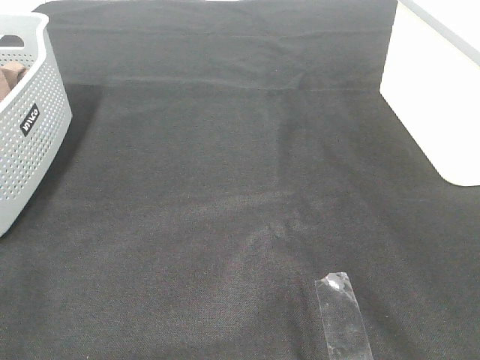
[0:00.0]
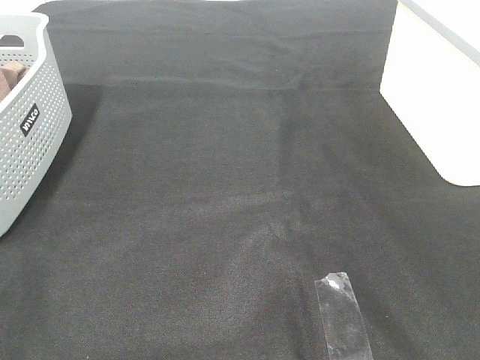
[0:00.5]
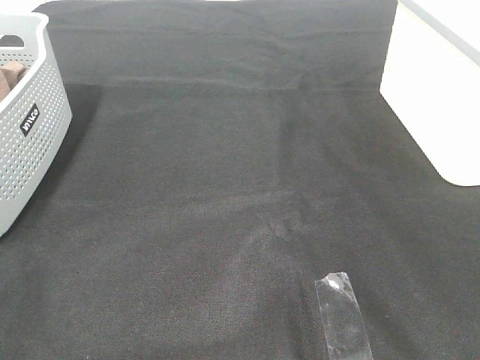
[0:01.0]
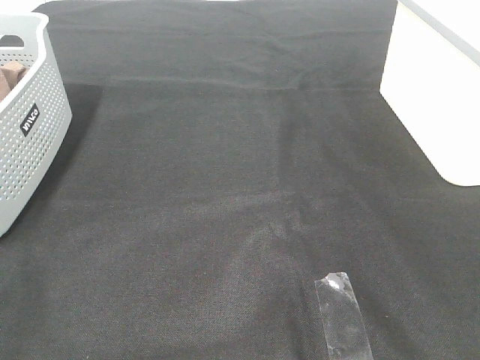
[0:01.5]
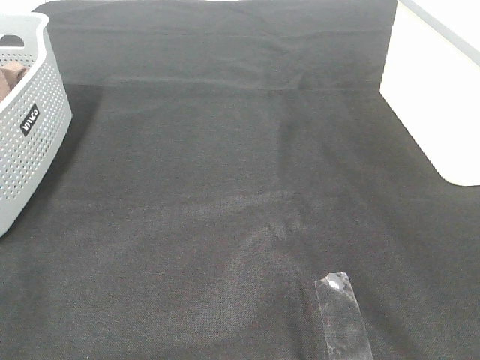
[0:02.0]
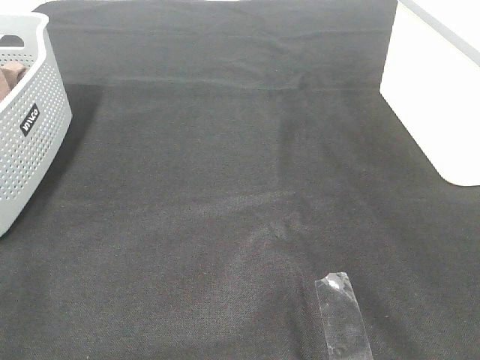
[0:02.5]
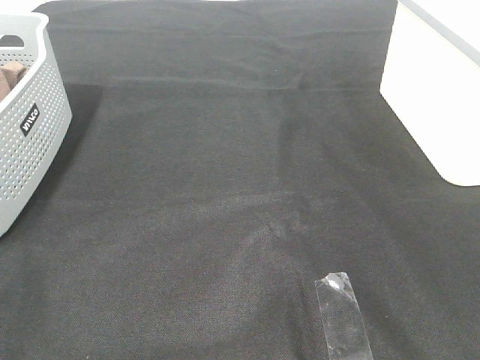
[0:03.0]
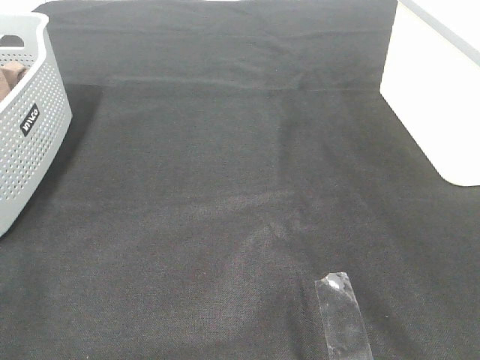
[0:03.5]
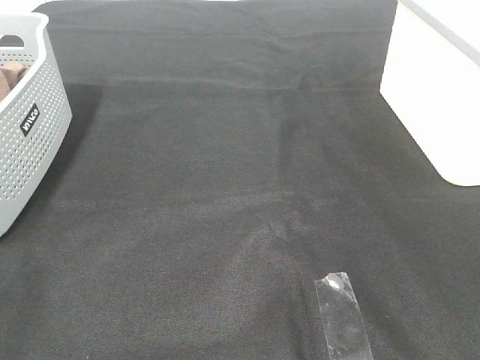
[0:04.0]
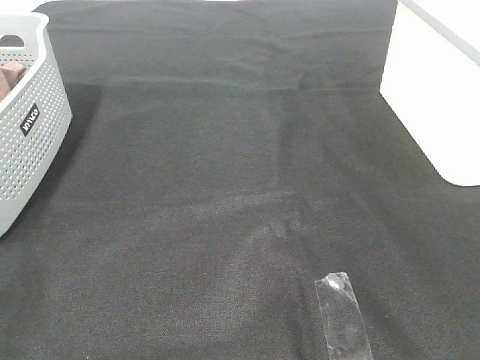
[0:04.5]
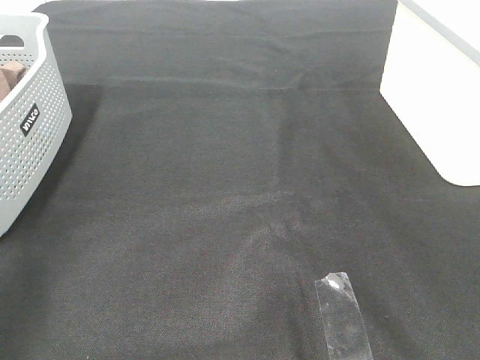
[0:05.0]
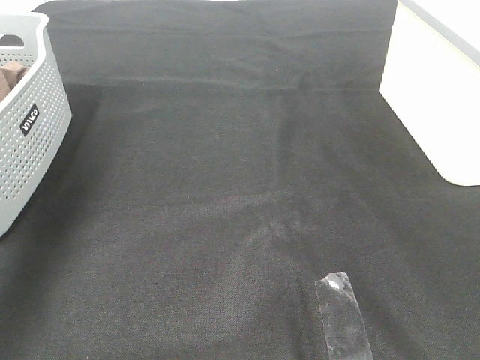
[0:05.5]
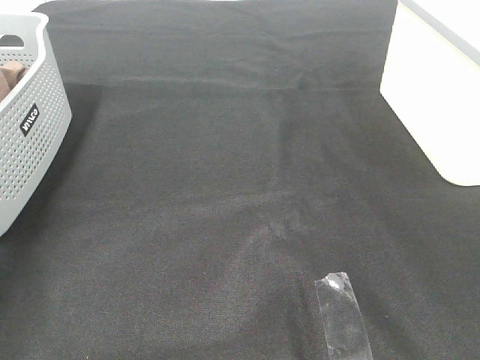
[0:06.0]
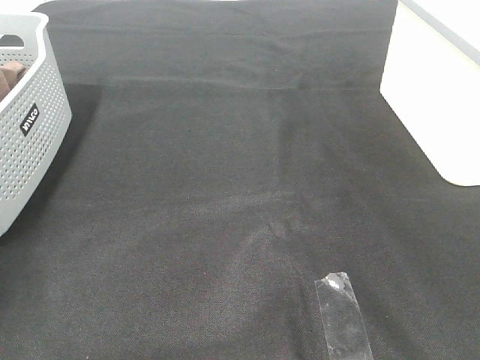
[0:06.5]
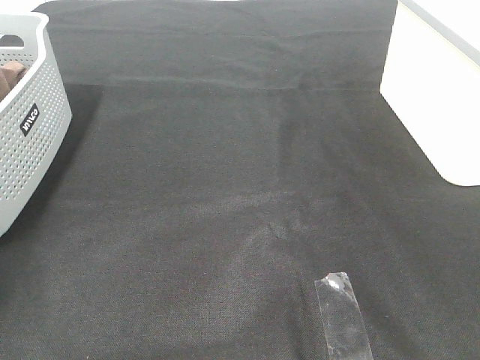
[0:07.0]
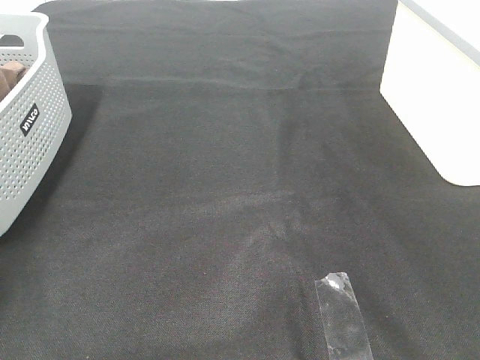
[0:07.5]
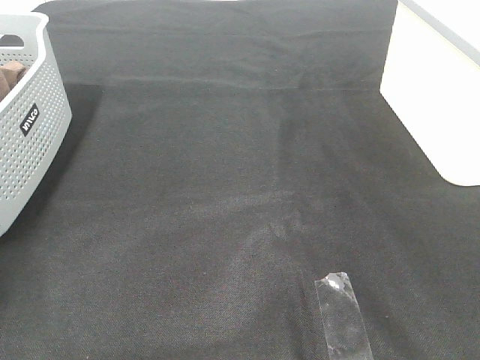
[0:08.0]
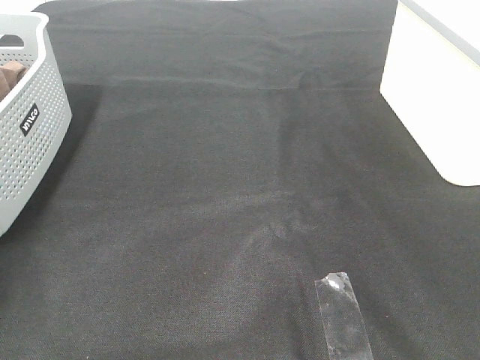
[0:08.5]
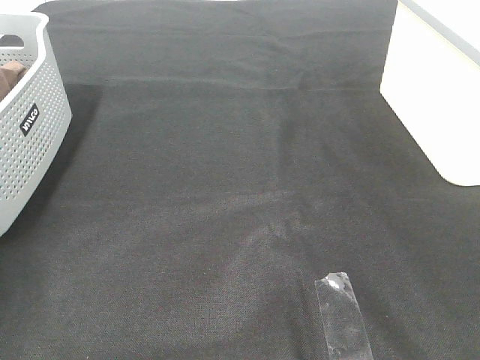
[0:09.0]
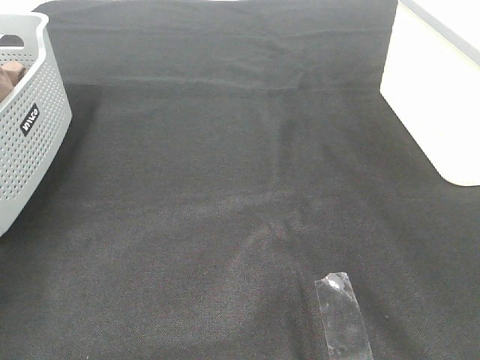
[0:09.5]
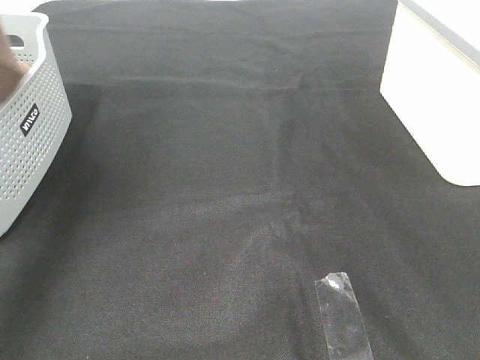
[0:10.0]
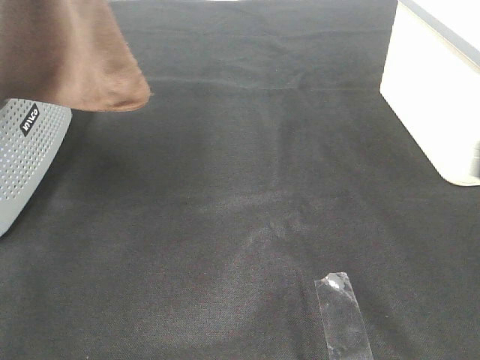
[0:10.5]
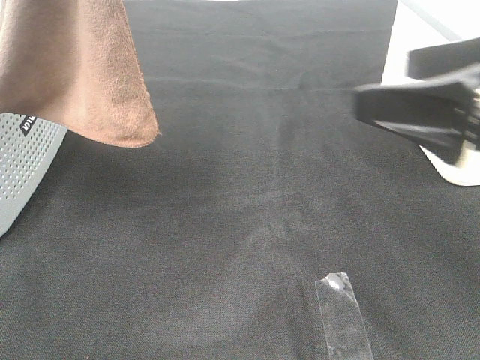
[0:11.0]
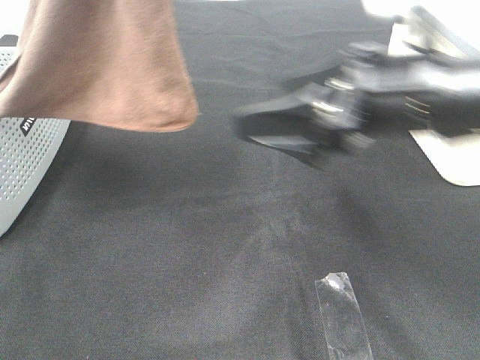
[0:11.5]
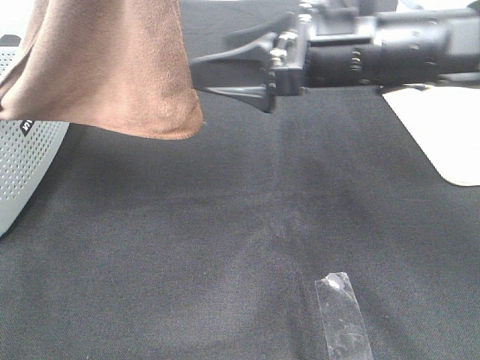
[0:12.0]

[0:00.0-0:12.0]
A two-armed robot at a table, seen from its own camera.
Task of the whole recording: Remove the towel and place it.
0:00.0 to 0:04.0: Both grippers stay put.
0:04.0 to 0:06.0: The left gripper is displaced forward by about 40 cm.
0:08.0 to 0:10.0: The left gripper travels upward, to the right and backward by about 35 cm.
0:10.0 to 0:12.0: The left gripper travels to the right by approximately 15 cm; the right gripper moves forward and to the left, roughly 35 cm.

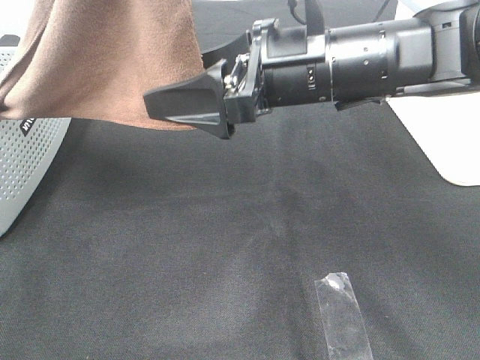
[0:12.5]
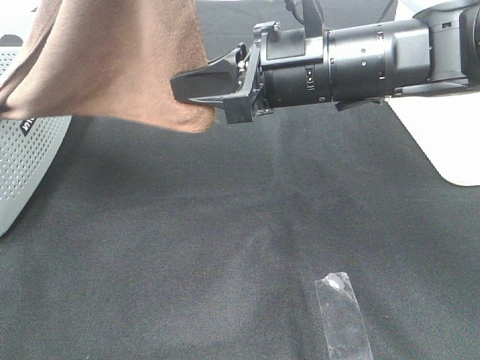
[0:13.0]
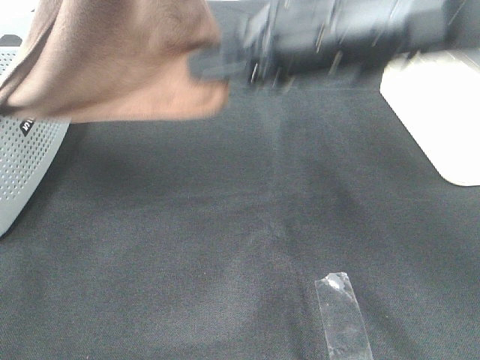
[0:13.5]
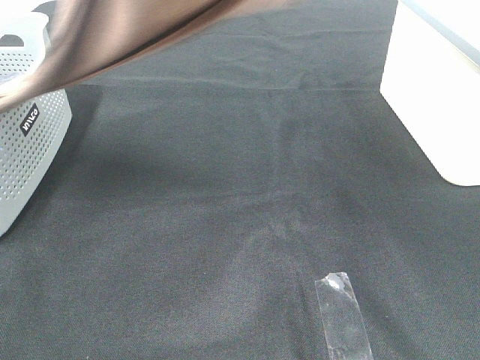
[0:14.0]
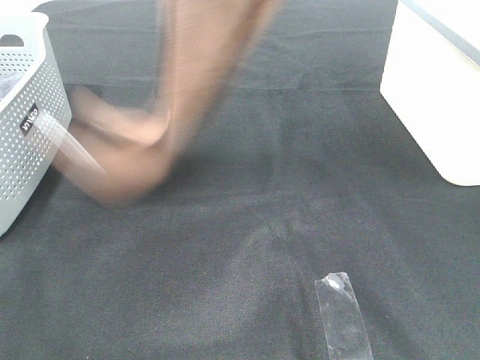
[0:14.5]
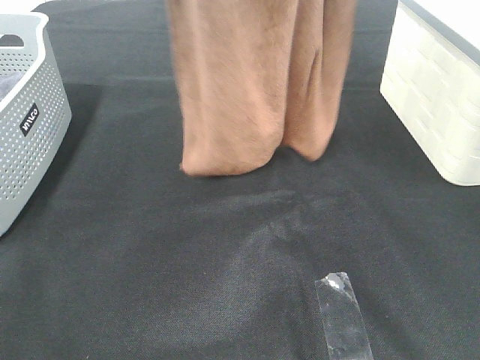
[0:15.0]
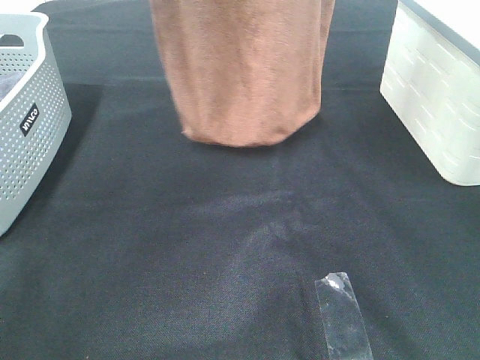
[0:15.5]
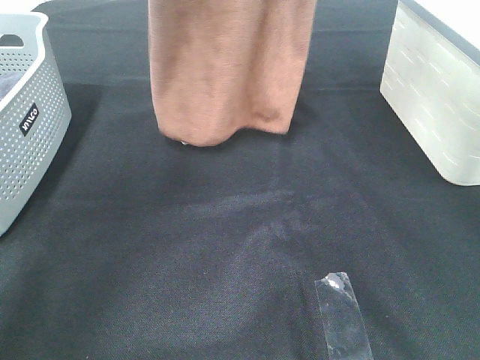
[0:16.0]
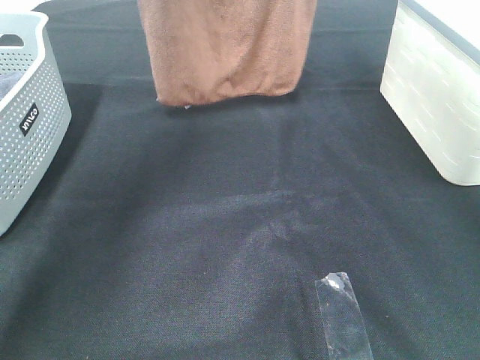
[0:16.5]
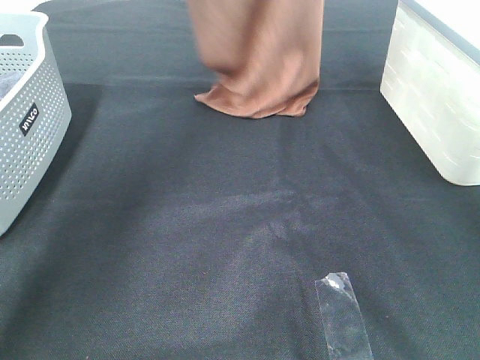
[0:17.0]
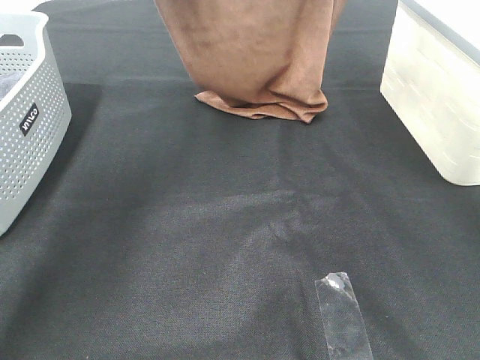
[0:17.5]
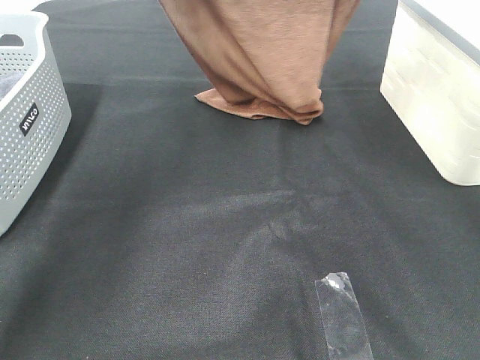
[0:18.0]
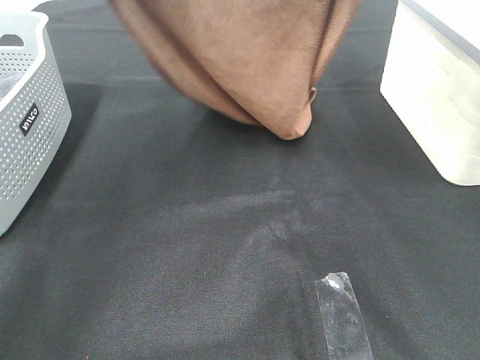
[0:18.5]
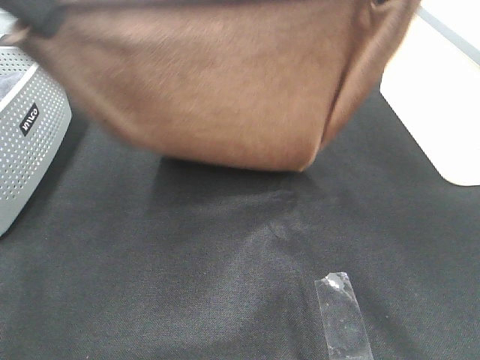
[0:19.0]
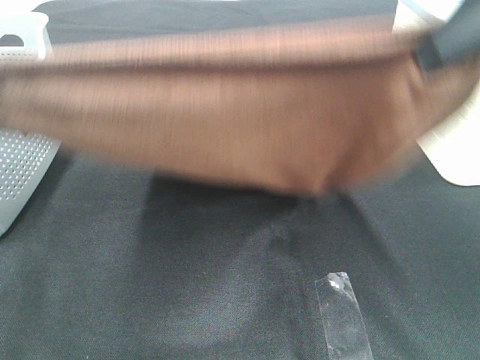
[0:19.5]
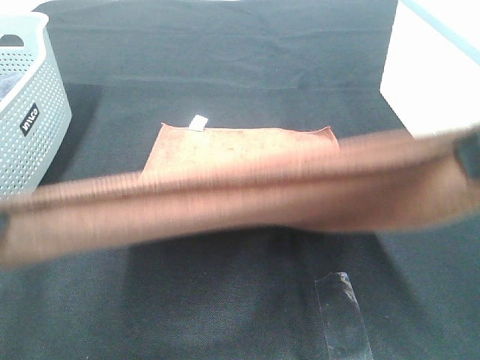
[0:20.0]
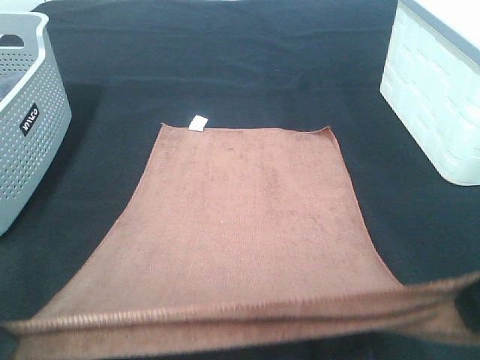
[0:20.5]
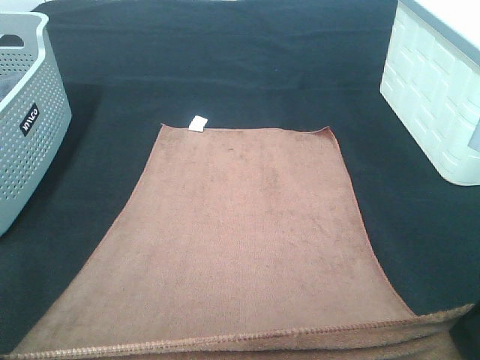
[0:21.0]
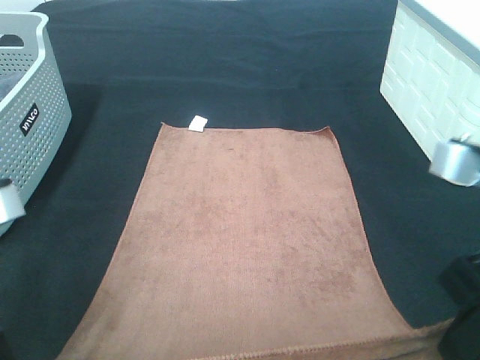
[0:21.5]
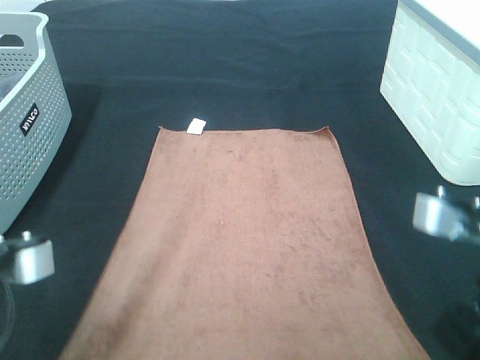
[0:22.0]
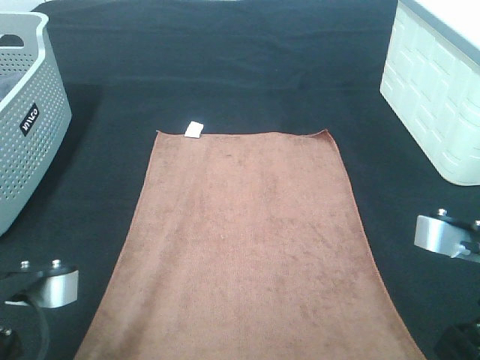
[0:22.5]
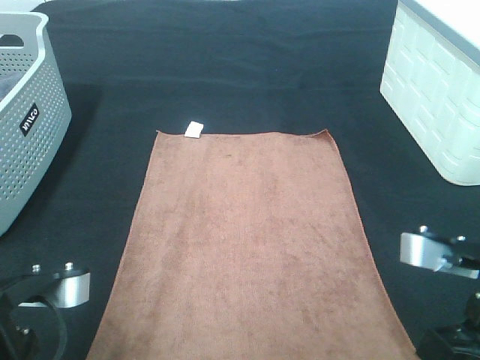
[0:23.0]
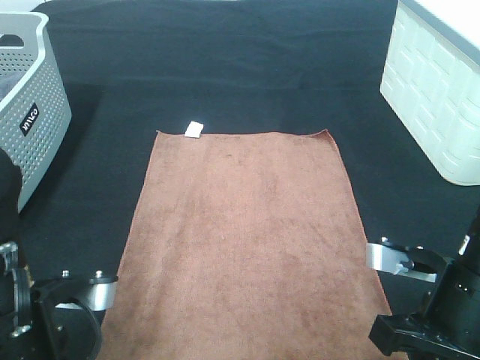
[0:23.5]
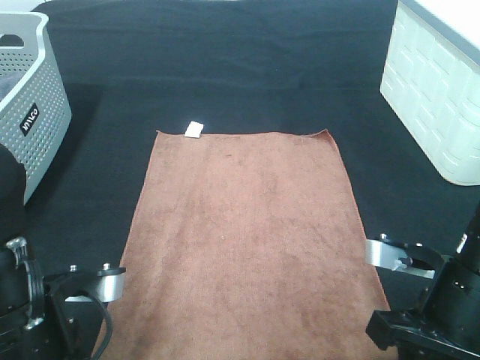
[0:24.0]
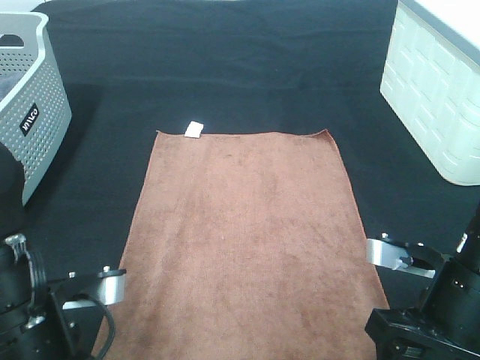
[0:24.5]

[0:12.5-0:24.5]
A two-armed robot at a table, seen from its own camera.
Task of the whole recording: Remove the towel and place it.
Step, 0:12.5 to 0:19.5: Left hand: spread the brown towel flat on the table.
Step, 0:12.5 to 0:19.5: Right hand: spread the brown towel flat on the table.
0:12.5 to 0:14.5: The left gripper travels forward by some 5 cm, while the right gripper is displaced upward by roughly 25 cm, and closes up.
0:14.5 to 0:16.5: The two grippers go about 15 cm forward.
0:16.5 to 0:18.5: Both grippers move backward and downward, approximately 15 cm.
0:18.5 to 0:20.5: Both grippers move backward and downward, approximately 30 cm.
0:20.5 to 0:22.5: The grippers both shift downward by about 10 cm.
0:22.5 to 0:24.5: The right gripper travels downward by about 5 cm, and opens up; the left gripper moves some 5 cm, and opens its fingers.

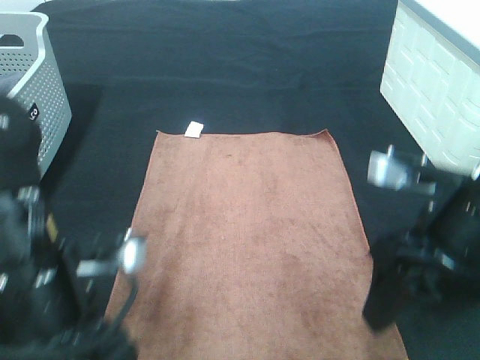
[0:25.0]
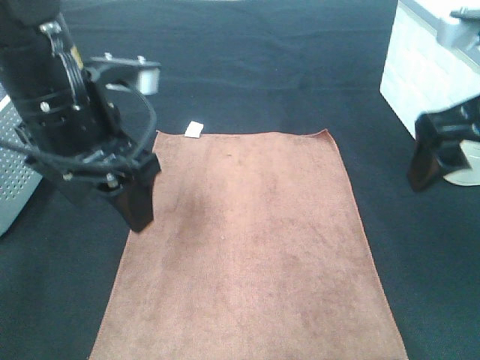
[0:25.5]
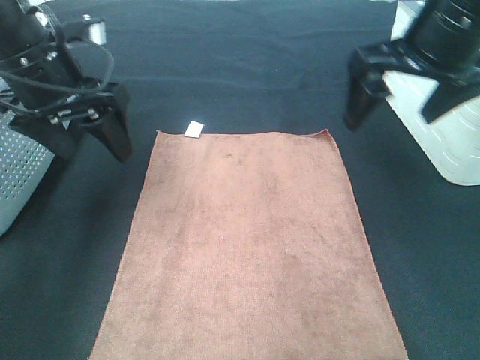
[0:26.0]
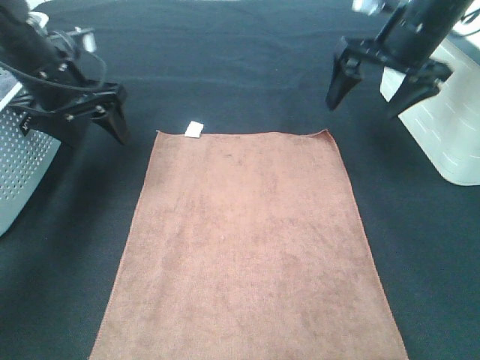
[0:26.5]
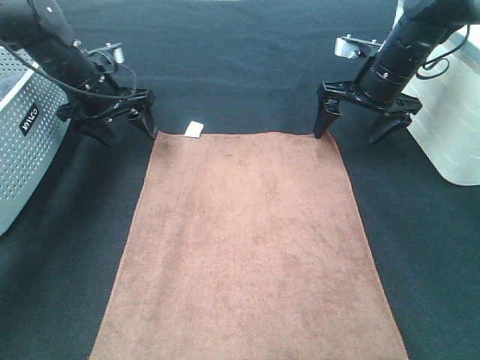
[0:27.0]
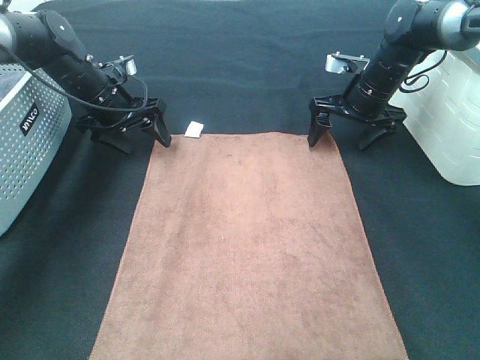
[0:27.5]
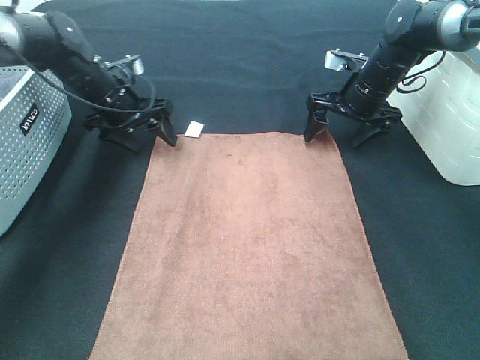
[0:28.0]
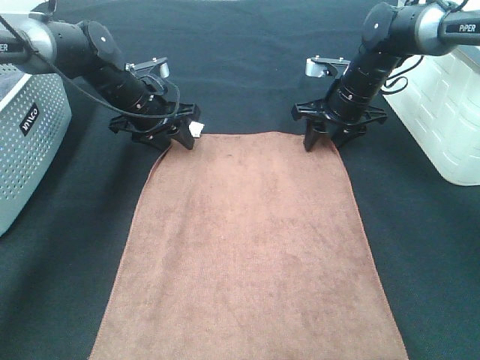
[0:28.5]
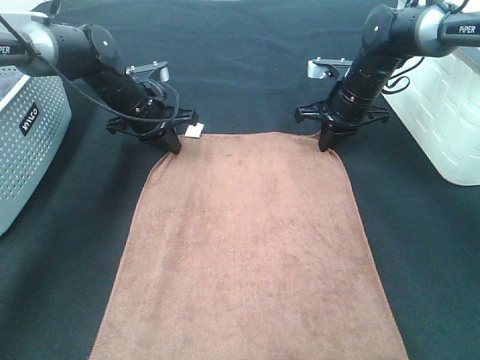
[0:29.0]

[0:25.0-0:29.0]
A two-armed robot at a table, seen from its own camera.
Task of the whole recording: Remove the towel and place it.
Step, 0:25.0 to 0:27.0: Left hand:adjust the brown towel.
Step, 0:25.0 to 0:27.0: Right hand:adjust the brown towel.
0:25.0 to 0:27.0: The grippers both shift forward by roughly 30 cm.
0:27.0 to 0:29.0: The right gripper shifts by approximately 5 cm, and closes its fingers, while the left gripper is displaced to the right by about 5 cm, and closes.
